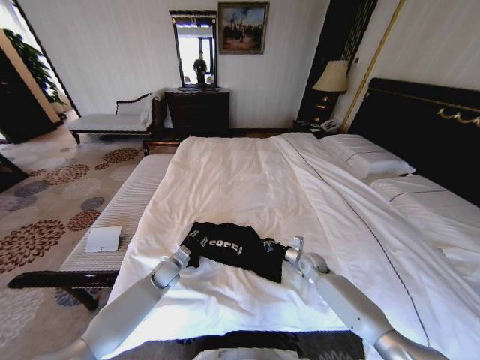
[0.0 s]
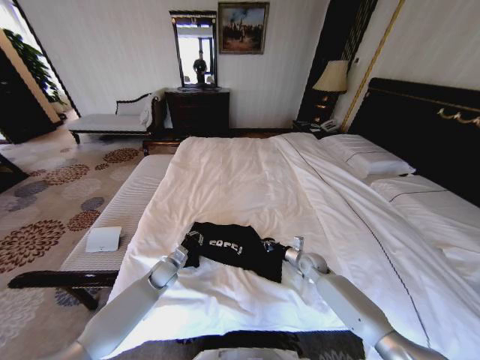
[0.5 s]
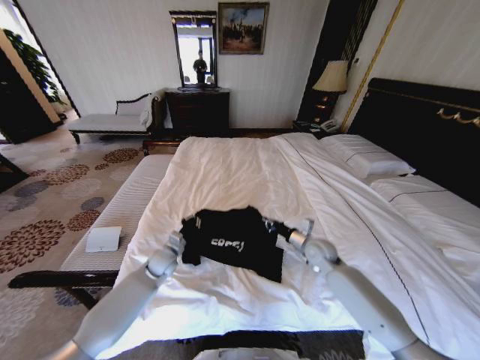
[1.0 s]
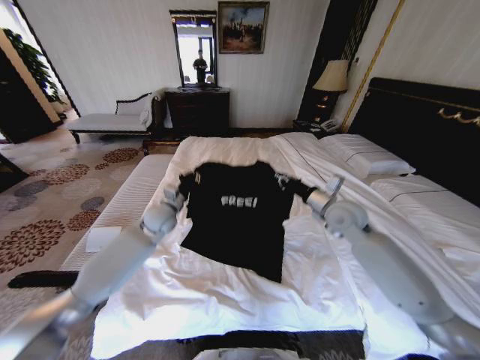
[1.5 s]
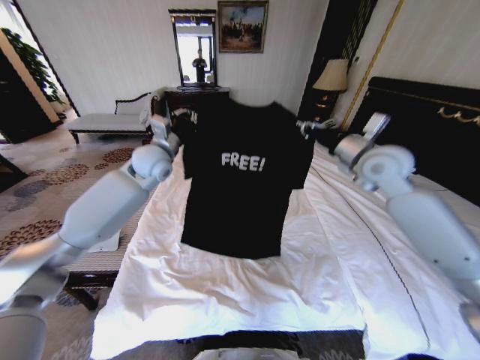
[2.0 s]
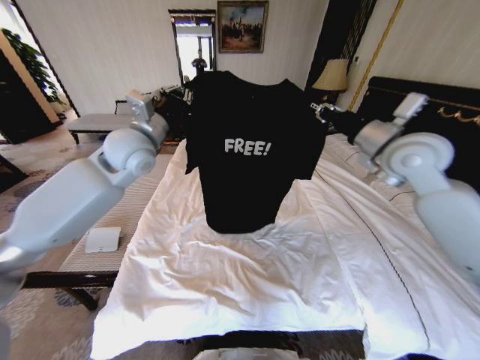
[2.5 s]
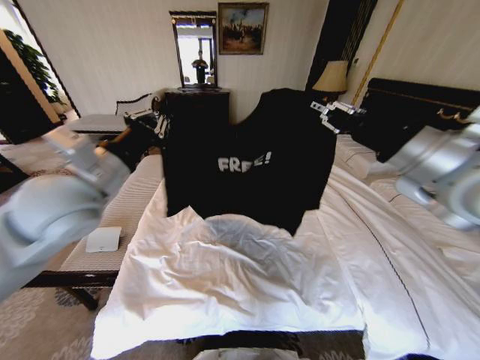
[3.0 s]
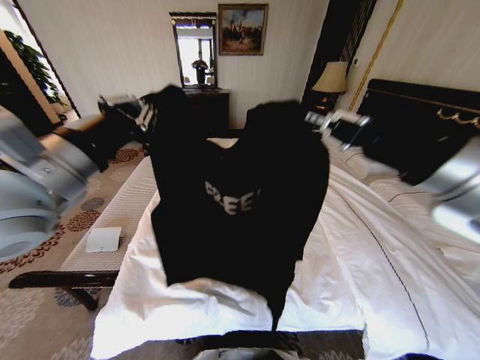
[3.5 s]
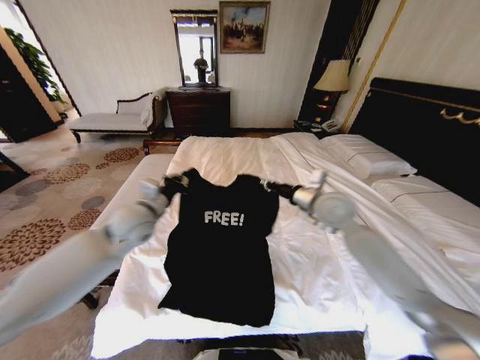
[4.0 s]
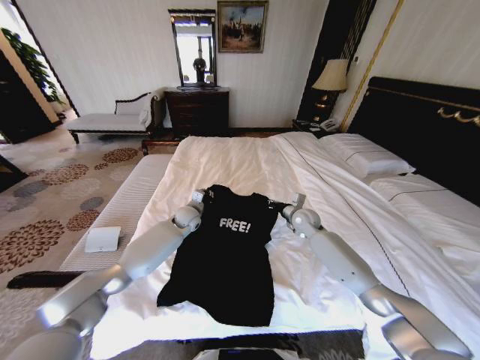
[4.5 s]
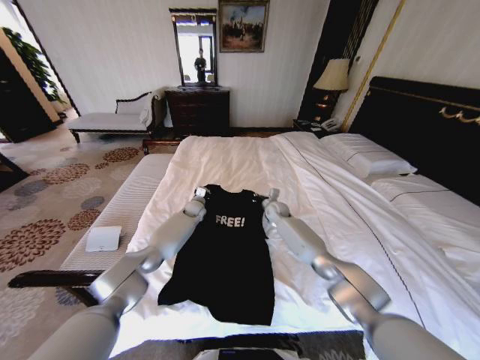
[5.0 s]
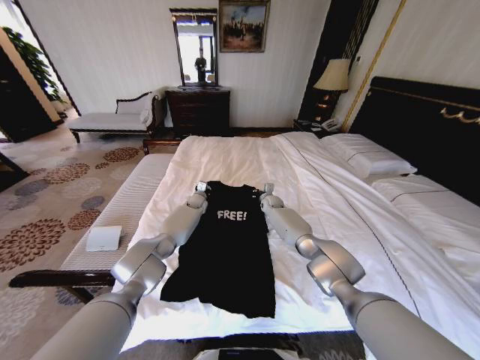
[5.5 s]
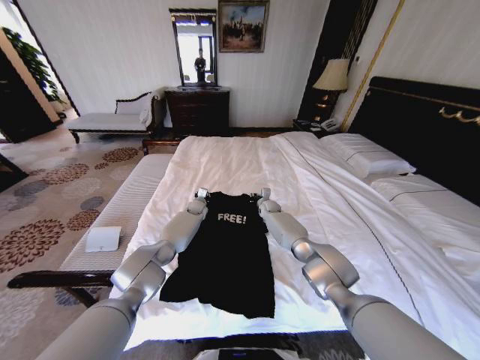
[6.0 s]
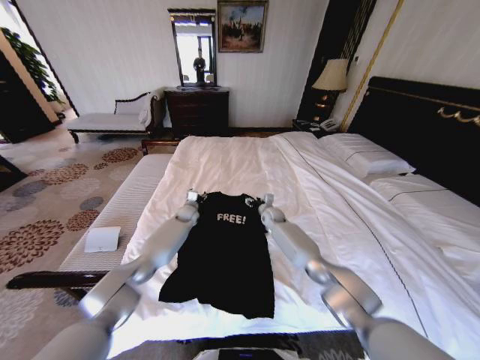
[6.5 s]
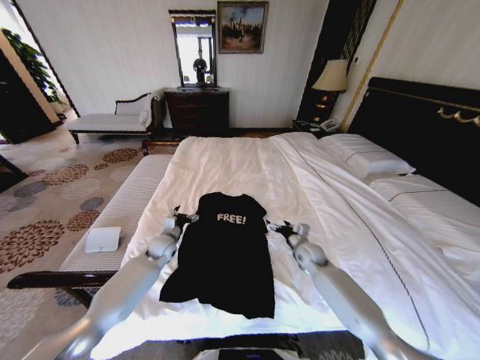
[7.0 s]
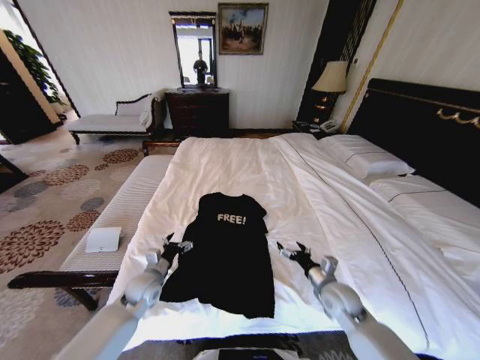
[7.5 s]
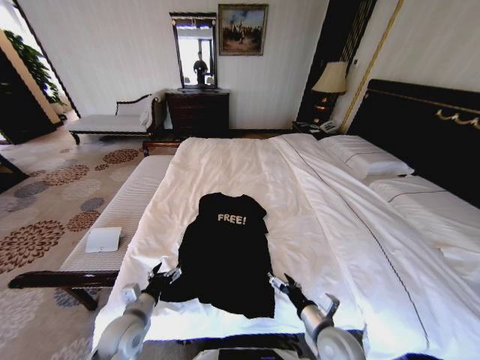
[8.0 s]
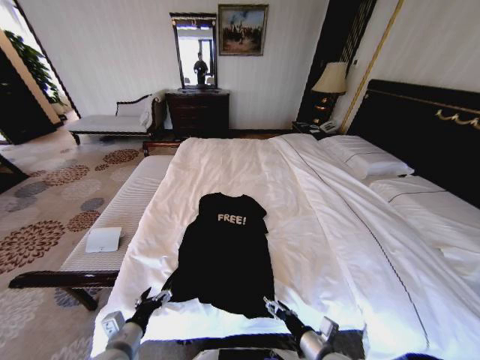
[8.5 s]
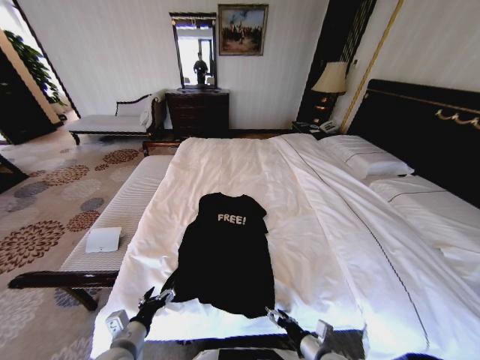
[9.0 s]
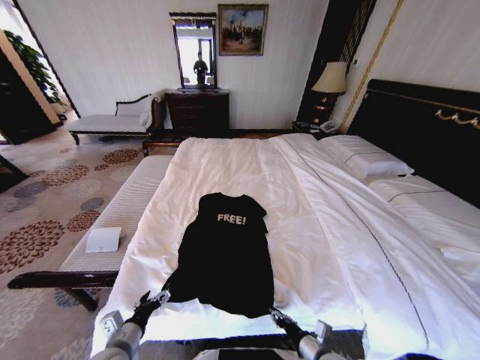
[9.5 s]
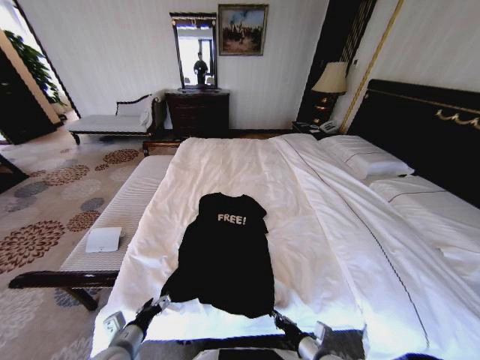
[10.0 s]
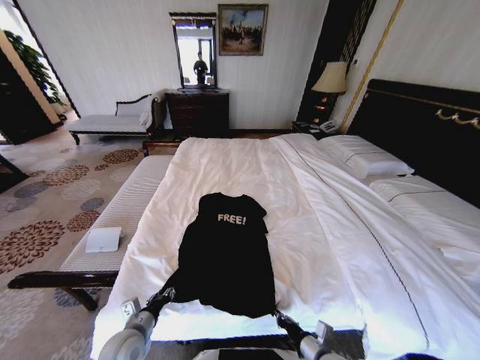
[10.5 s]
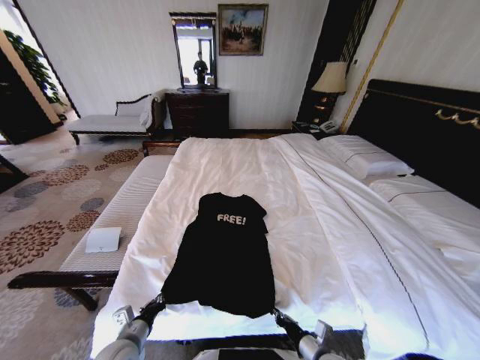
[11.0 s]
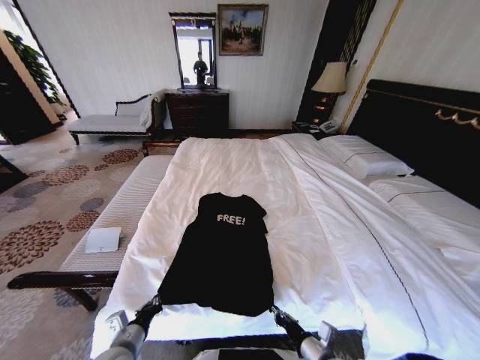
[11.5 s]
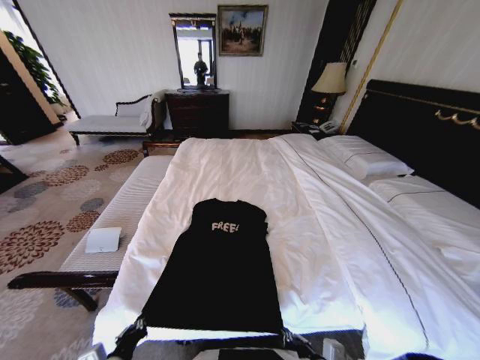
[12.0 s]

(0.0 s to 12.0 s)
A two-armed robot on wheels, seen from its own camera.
Task of the whole recording: Fold the clothes on the bed.
0.0 s - 2.0 s: The two grippers go some 40 cm upward.
2.0 s - 4.0 s: The right gripper is displaced downward and to the left by approximately 15 cm, and reaches approximately 25 cm backward, then returns, while the left gripper goes about 15 cm backward and downward.
4.0 s - 6.0 s: The right gripper travels downward and forward by roughly 35 cm; the left gripper goes about 35 cm forward and downward.
6.0 s - 8.0 s: Both grippers travel together backward, about 50 cm. The left gripper opens. Meanwhile the right gripper opens up.
8.0 s - 10.0 s: The right gripper moves downward and backward, roughly 10 cm, and closes its fingers. Meanwhile the left gripper is displaced backward by approximately 5 cm.
10.0 s - 12.0 s: The left gripper goes about 5 cm backward, and closes its fingers; the right gripper heads upward, covering some 10 cm.

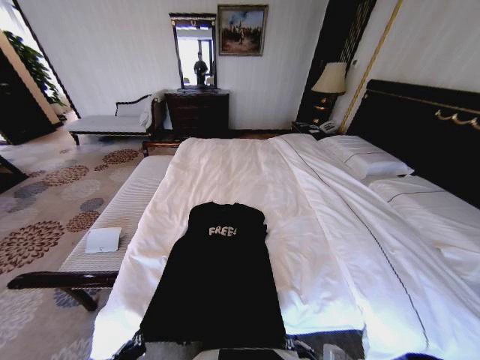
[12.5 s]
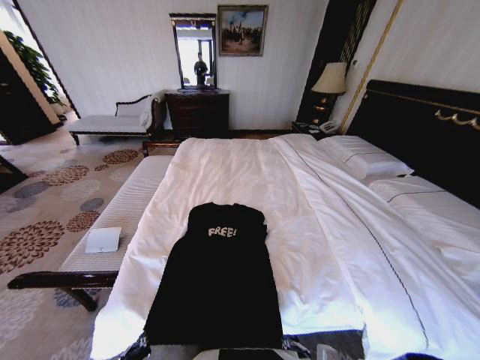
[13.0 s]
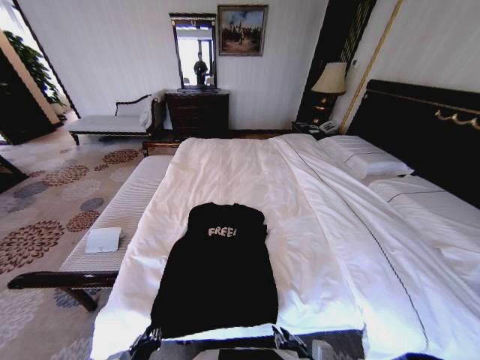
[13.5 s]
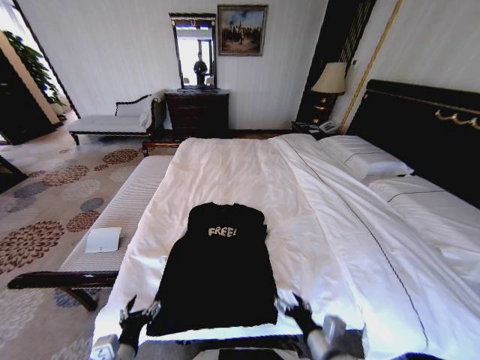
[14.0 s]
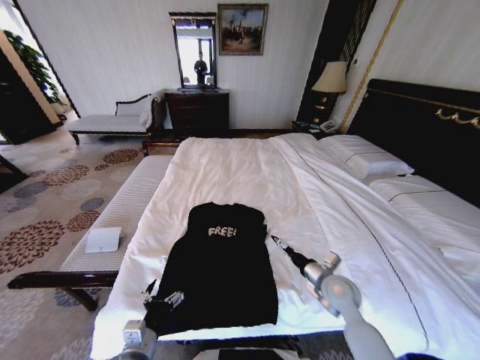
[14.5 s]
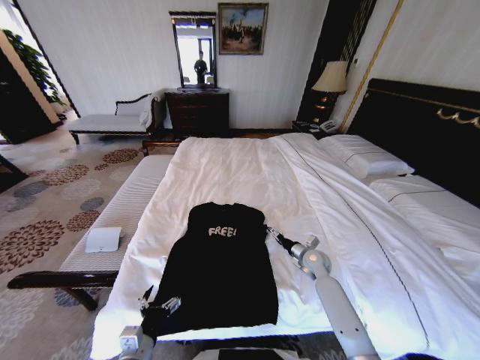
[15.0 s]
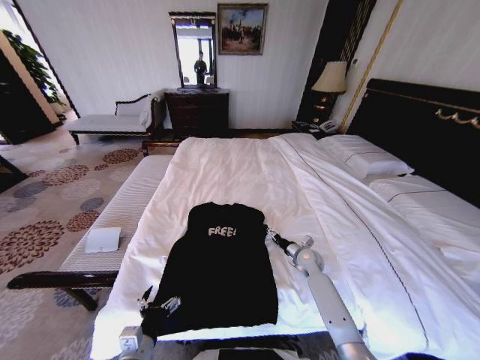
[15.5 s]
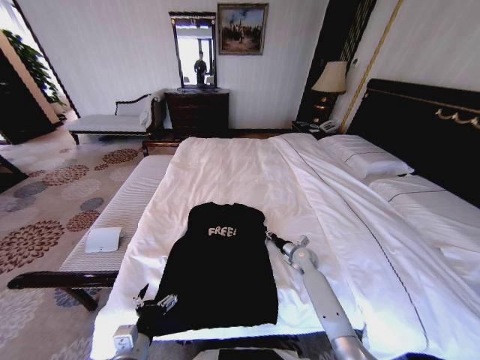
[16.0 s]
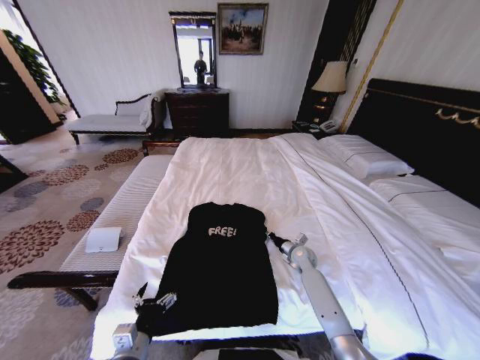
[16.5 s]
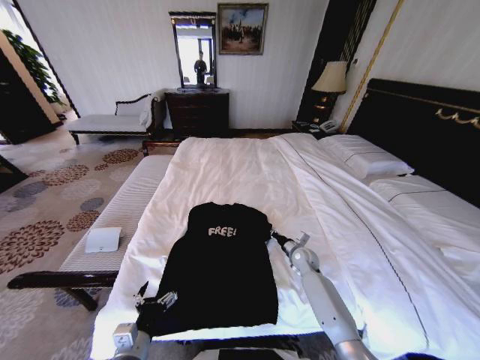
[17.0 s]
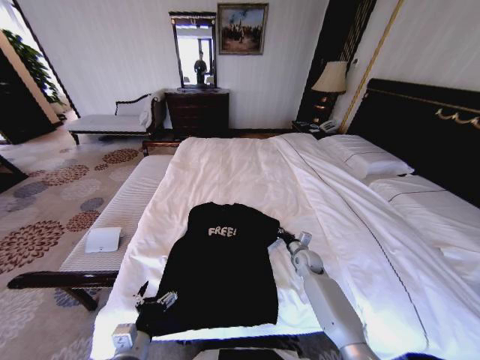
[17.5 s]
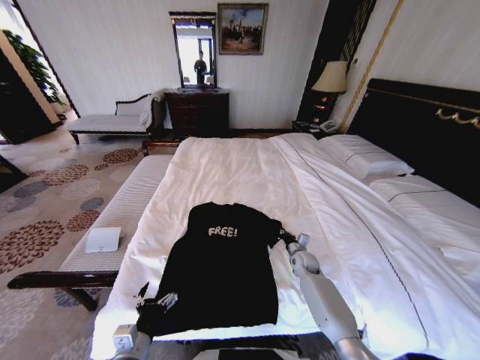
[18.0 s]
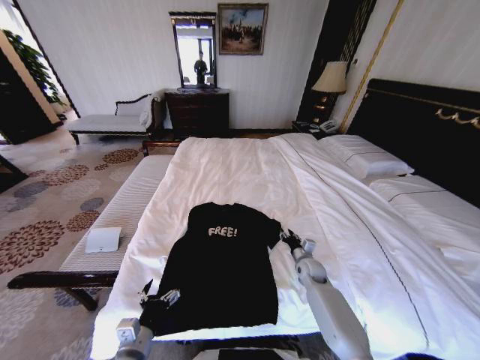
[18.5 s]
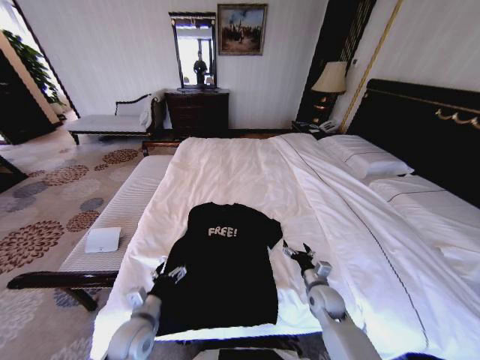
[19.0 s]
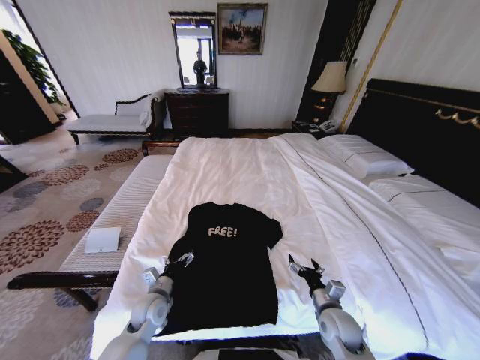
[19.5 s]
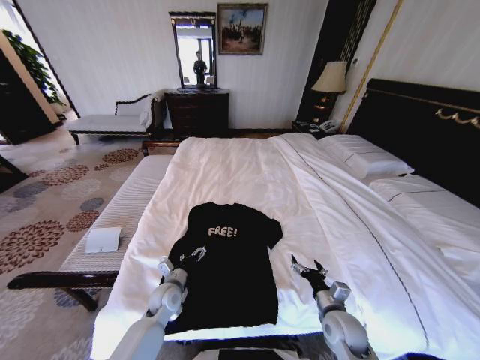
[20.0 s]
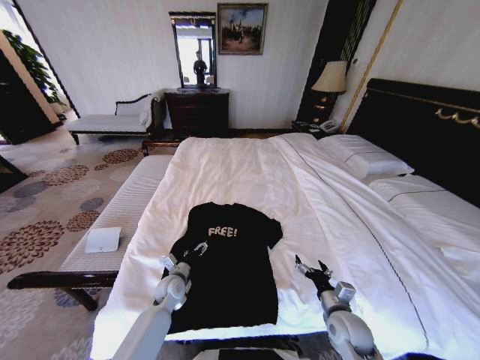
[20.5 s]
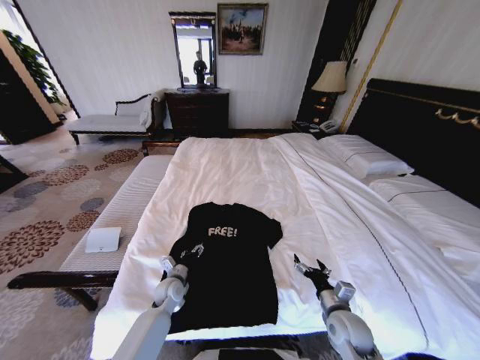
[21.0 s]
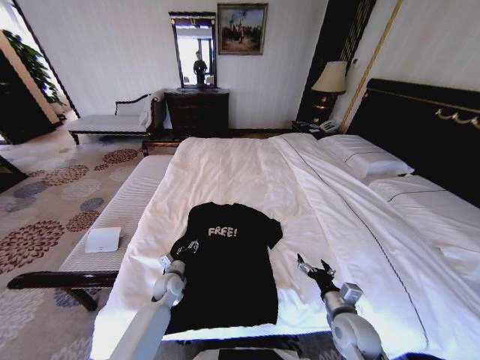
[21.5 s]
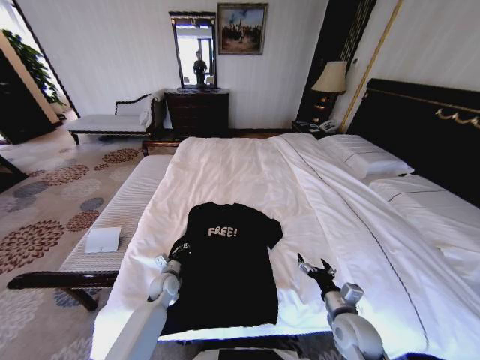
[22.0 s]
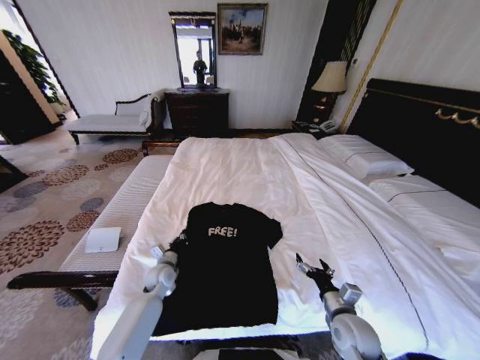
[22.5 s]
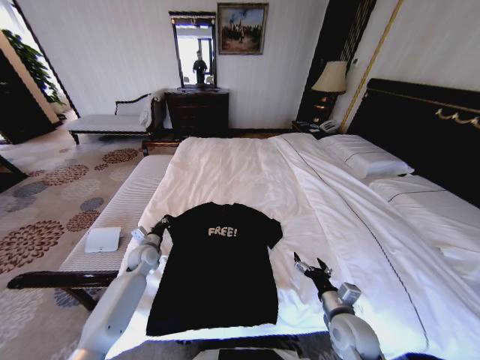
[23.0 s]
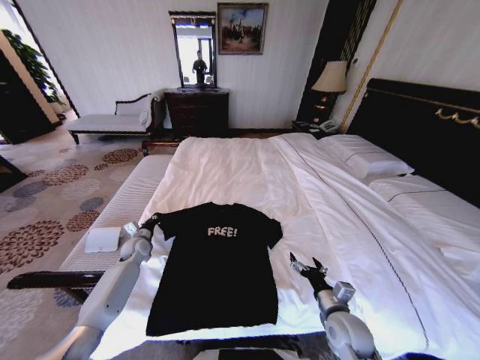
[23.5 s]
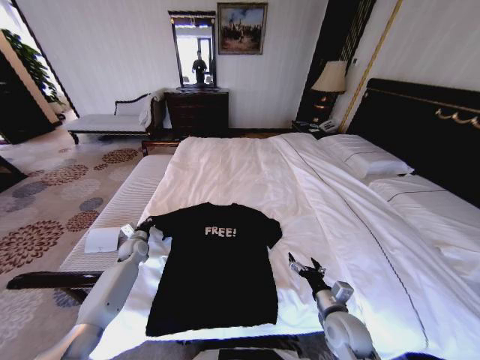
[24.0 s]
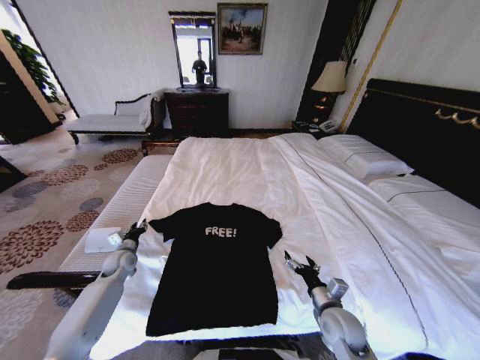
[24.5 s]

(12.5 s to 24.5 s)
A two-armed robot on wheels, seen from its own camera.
Task of the whole recording: Fold the clothes on the bed.
12.5 s - 14.5 s: The right gripper is displaced forward by roughly 20 cm, and opens up. The left gripper shifts some 5 cm forward, and opens its fingers.
14.5 s - 16.5 s: The right gripper shifts roughly 20 cm forward and downward, and closes up.
16.5 s - 18.5 s: The right gripper opens.
18.5 s - 20.5 s: The left gripper is displaced forward by approximately 20 cm. Meanwhile the right gripper travels backward by approximately 20 cm, and opens.
20.5 s - 22.5 s: The left gripper ends up roughly 5 cm from where it was, and closes its fingers.
22.5 s - 24.5 s: The left gripper is displaced to the left by some 15 cm, and opens its fingers.

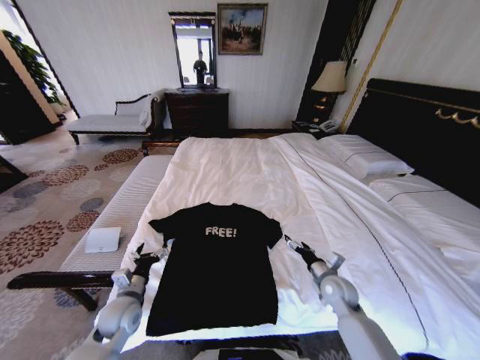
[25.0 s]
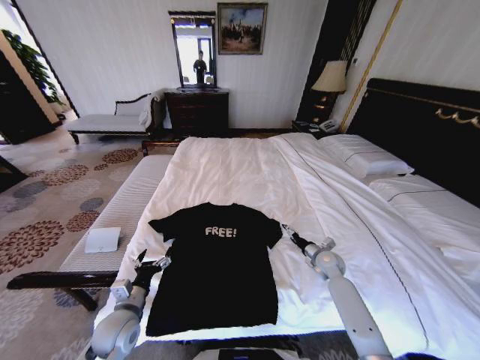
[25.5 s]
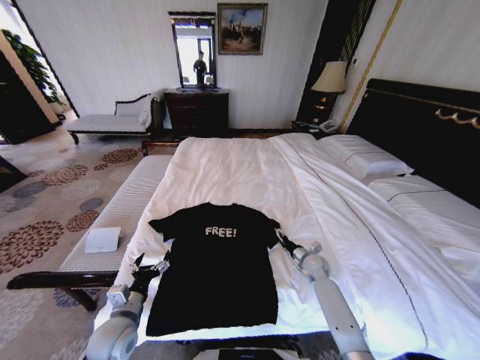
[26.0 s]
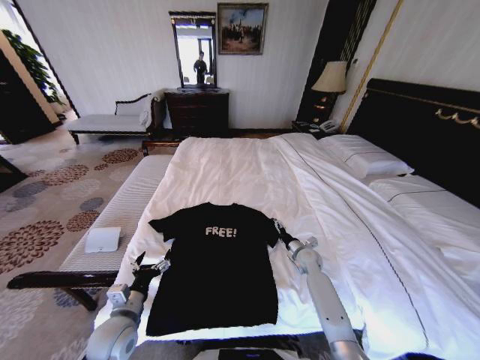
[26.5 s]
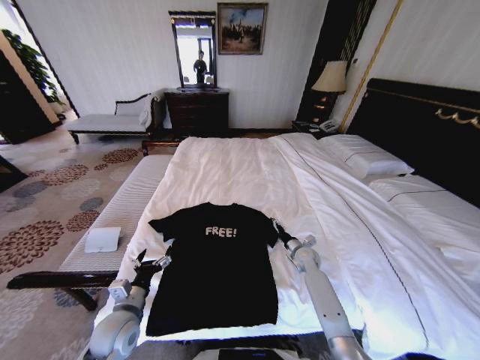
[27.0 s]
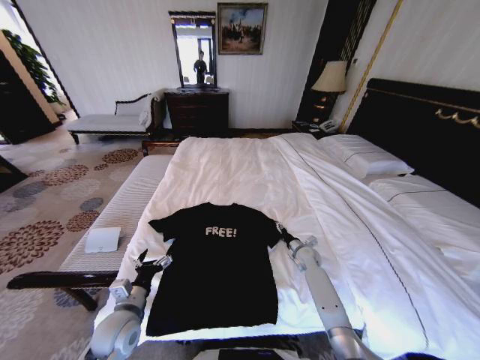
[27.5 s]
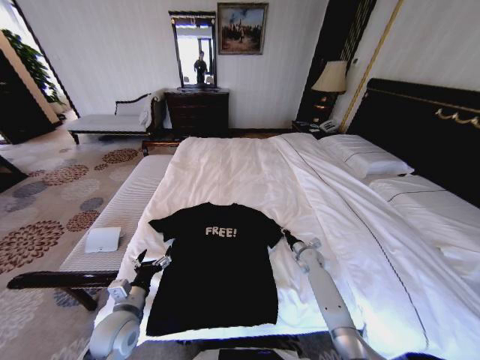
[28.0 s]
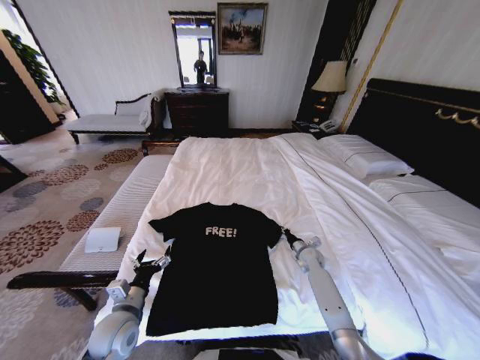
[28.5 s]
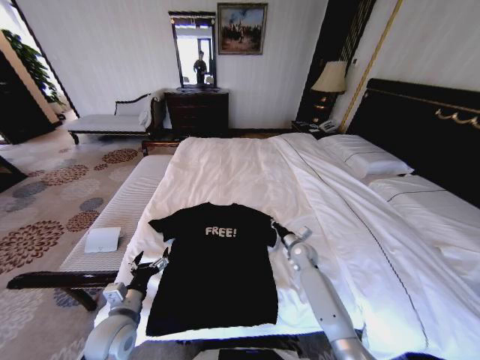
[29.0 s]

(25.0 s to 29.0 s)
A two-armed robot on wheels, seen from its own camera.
Task of the whole recording: Fold the clothes on the bed.
25.0 s - 27.0 s: The left gripper ends up some 5 cm from where it was, while the right gripper shifts approximately 15 cm forward.
27.0 s - 29.0 s: The right gripper closes up.
